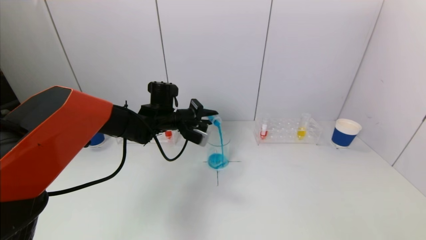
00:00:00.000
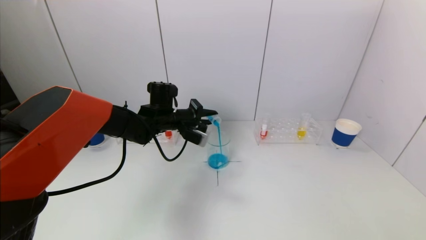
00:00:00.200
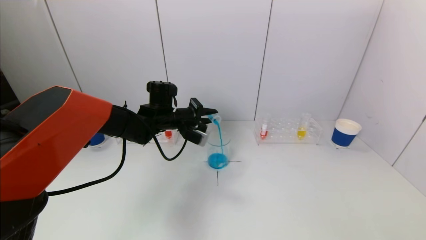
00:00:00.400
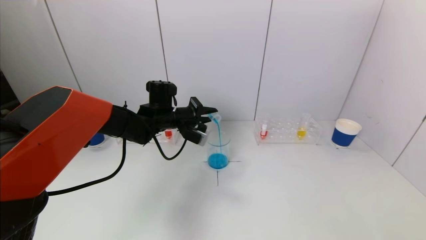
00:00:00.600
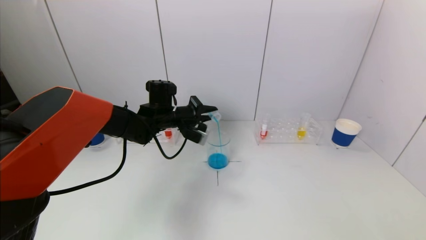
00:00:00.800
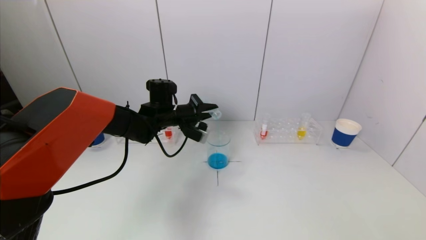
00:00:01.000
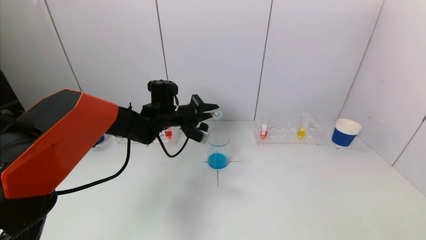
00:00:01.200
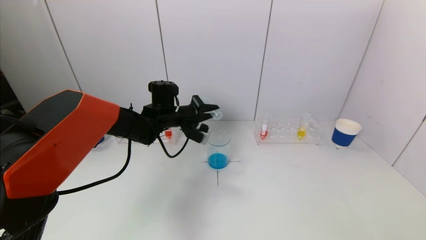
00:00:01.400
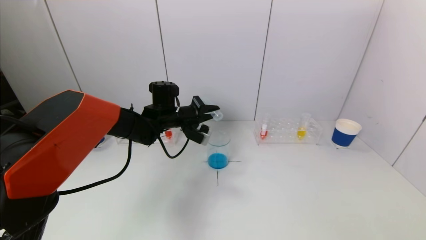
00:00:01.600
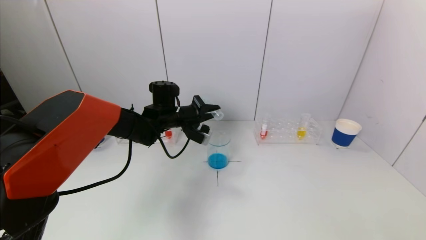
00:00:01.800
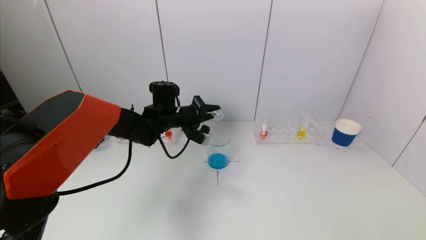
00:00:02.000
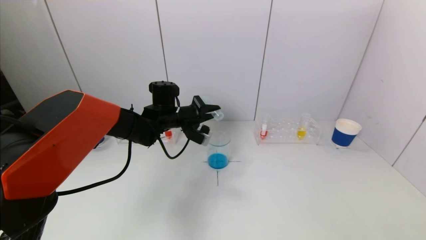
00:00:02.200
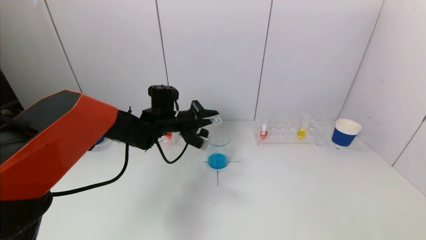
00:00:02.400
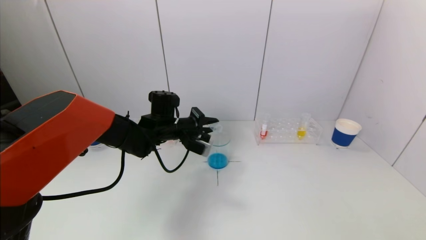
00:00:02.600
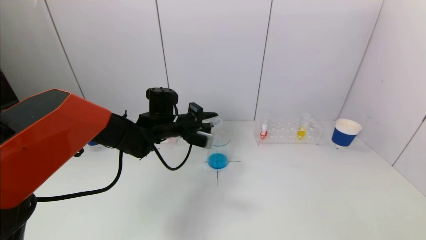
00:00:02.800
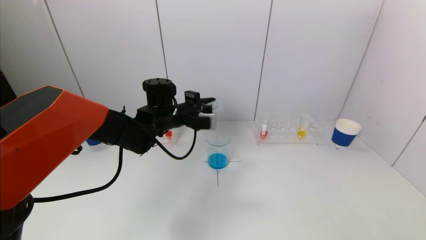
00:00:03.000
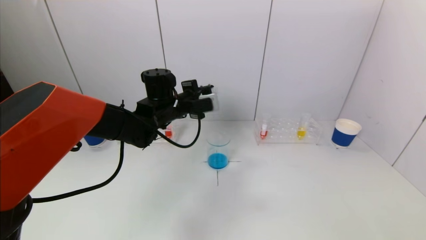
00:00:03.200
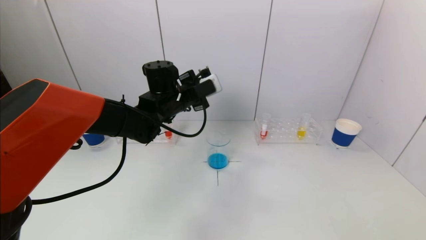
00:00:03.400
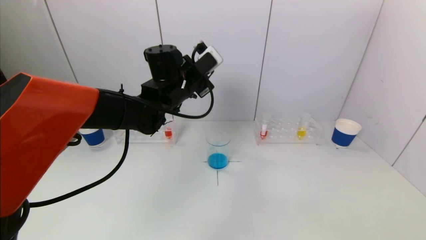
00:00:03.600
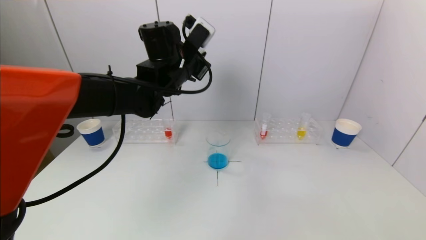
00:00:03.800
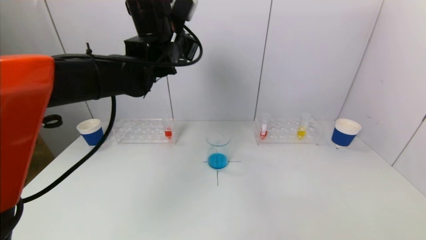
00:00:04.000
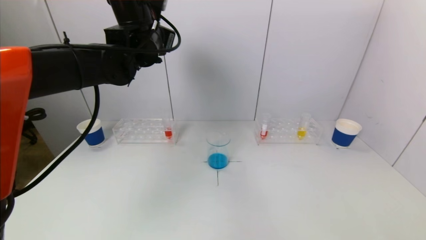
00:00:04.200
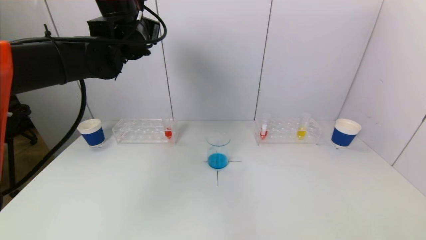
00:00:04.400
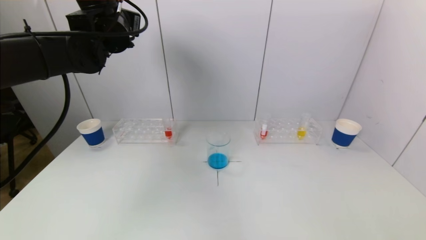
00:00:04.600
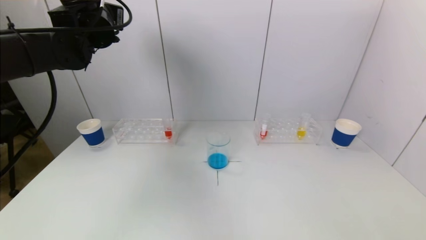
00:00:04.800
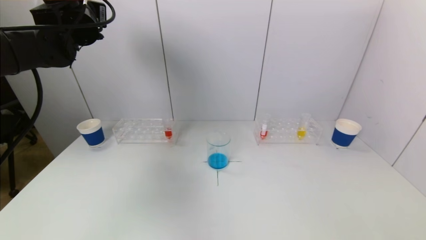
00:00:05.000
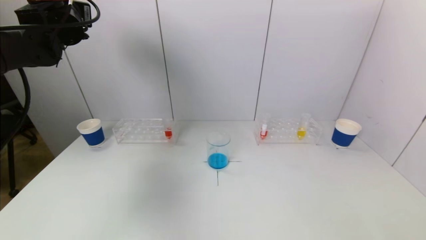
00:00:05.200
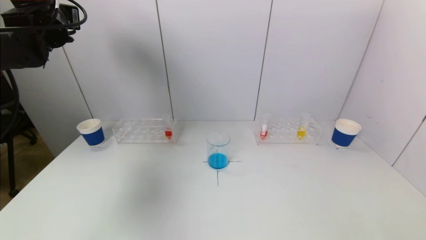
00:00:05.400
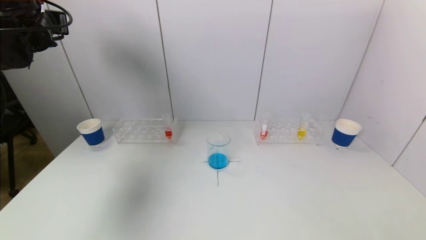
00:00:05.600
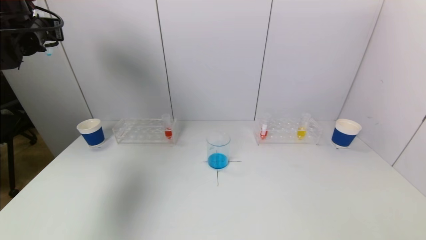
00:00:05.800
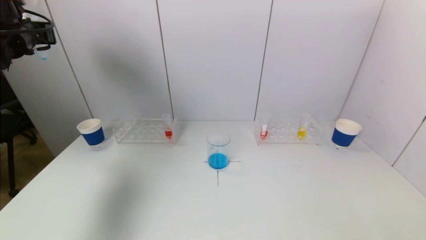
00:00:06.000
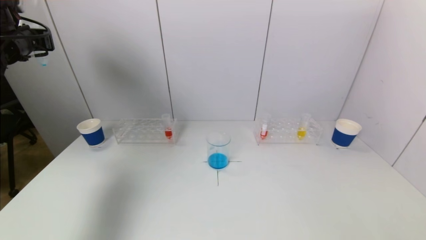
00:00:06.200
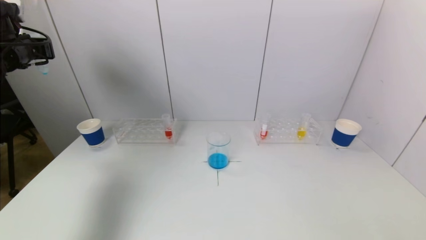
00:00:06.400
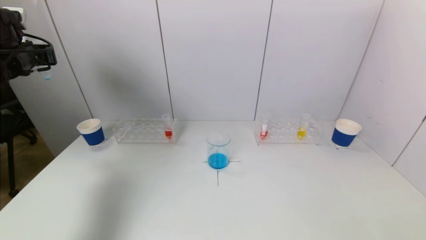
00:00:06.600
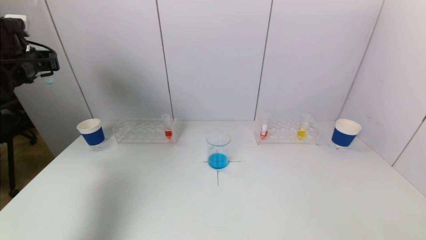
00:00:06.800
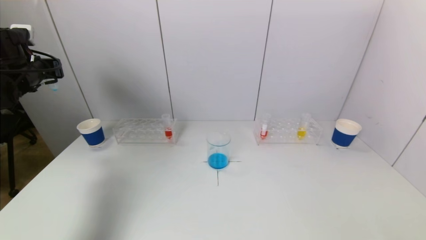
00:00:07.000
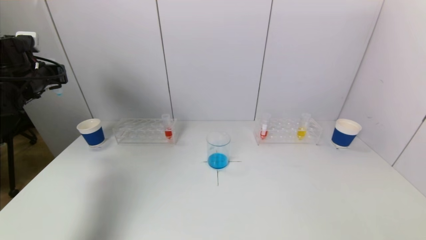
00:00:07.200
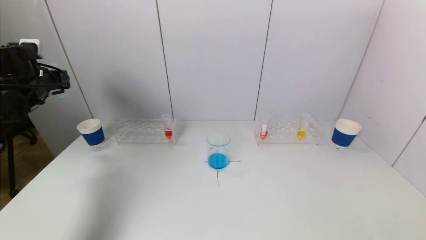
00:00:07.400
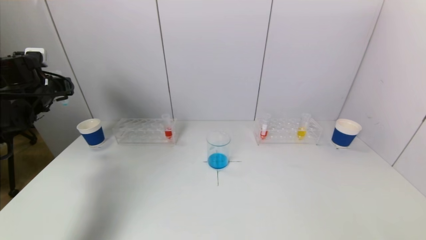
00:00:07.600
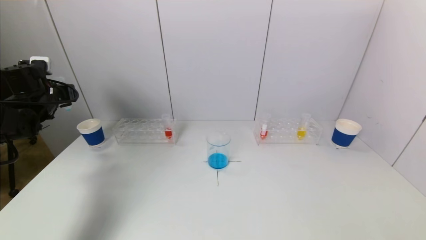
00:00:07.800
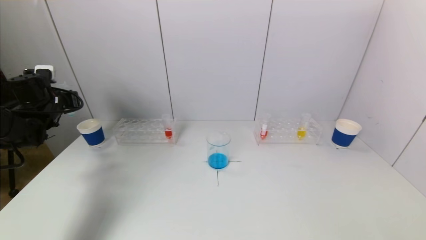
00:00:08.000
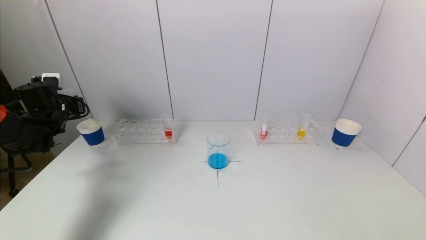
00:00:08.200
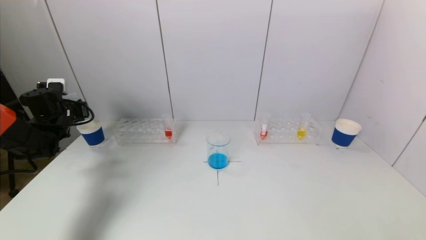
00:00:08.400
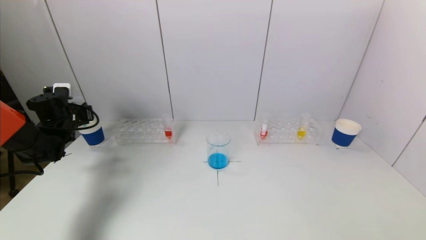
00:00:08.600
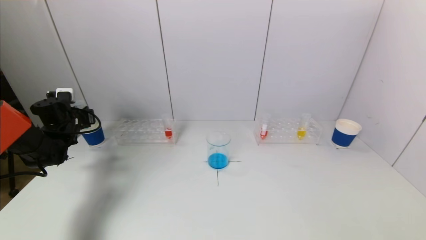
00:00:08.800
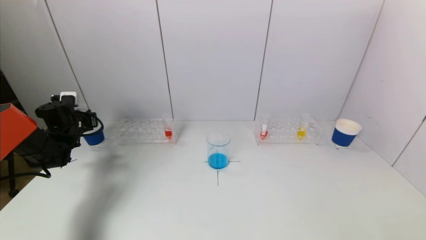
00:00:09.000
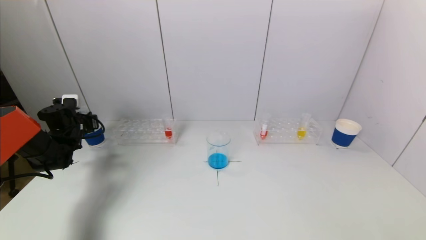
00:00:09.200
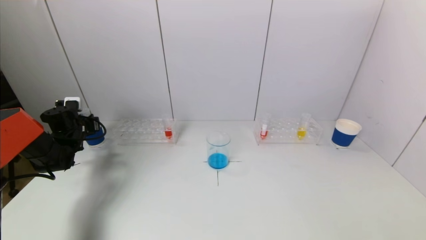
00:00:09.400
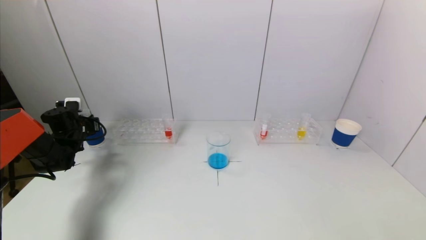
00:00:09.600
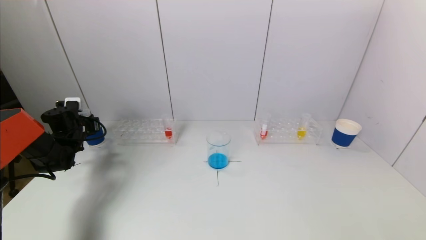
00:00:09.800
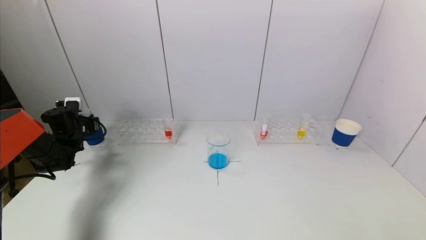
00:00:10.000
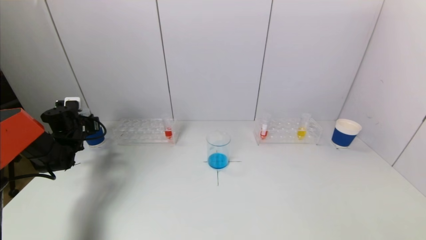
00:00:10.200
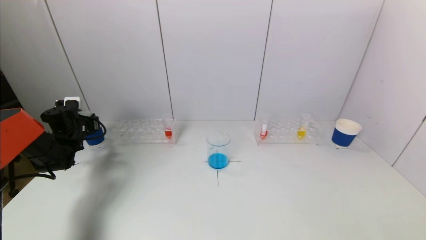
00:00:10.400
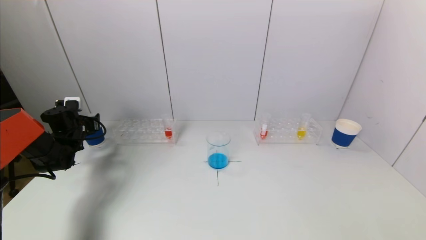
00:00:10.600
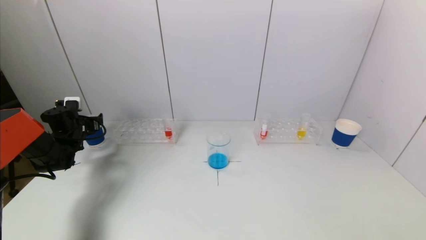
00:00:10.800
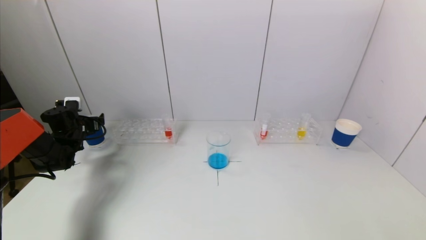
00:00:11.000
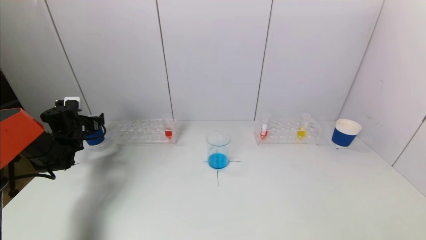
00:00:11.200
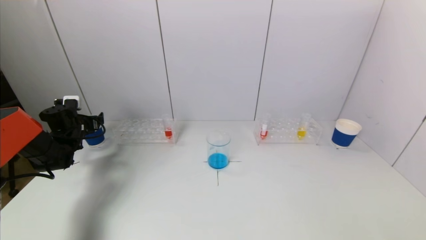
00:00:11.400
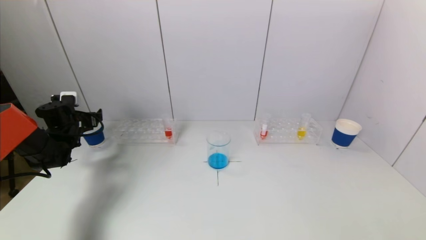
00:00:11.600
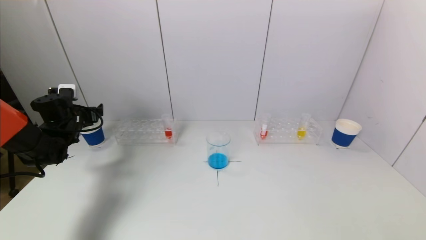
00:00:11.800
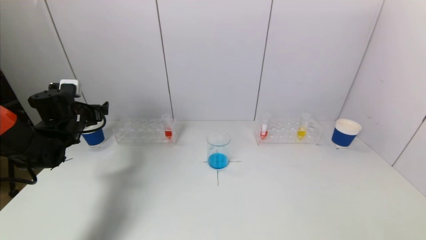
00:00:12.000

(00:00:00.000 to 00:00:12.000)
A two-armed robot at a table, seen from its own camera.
Task of the whole recording: pick up a test tube with pigment on left test tube rack and a test tube with pigment on right test tube rack by grippers and pour them into the beaker.
Step, 00:00:01.400 - 00:00:10.800: Place the test tube into the paper cup with the left gripper.
00:00:00.000 - 00:00:01.600: The grippers move only a little.
00:00:03.000 - 00:00:04.400: The left gripper heads upward, covering approximately 20 cm.
00:00:04.400 - 00:00:06.000: The left gripper goes some 25 cm to the left.
00:00:06.000 - 00:00:07.600: The left gripper travels downward by about 15 cm.
00:00:07.600 - 00:00:09.000: The left gripper is displaced downward by approximately 15 cm.
00:00:09.000 - 00:00:10.400: There are only small adjustments of the grippers.
00:00:10.400 - 00:00:12.000: The left gripper travels upward and to the right by about 10 cm, and opens its fingers.

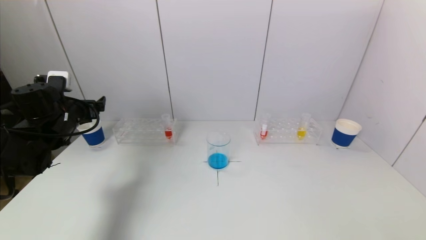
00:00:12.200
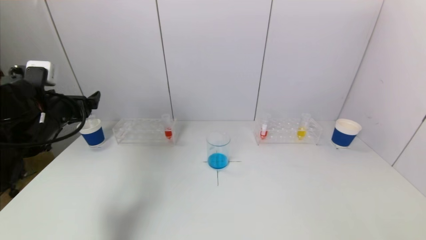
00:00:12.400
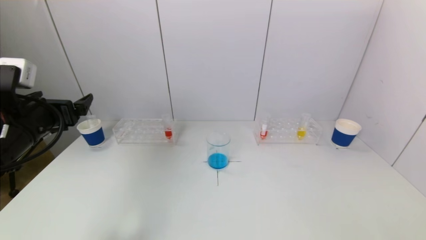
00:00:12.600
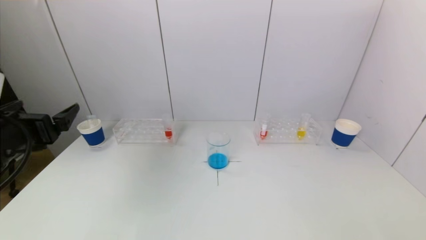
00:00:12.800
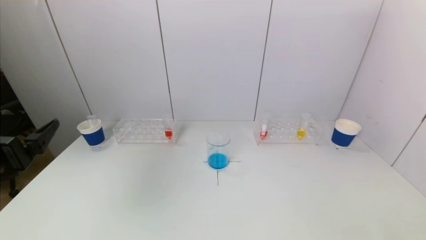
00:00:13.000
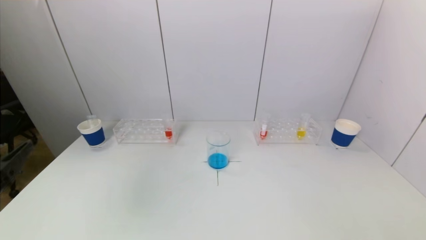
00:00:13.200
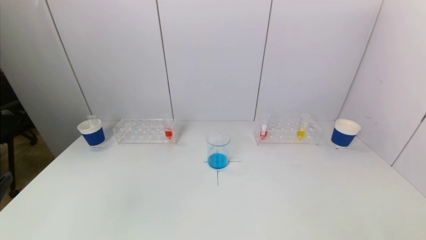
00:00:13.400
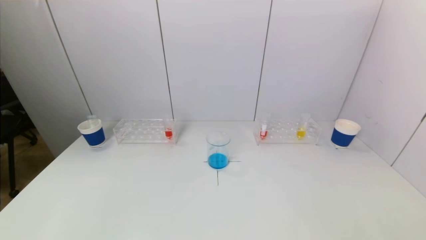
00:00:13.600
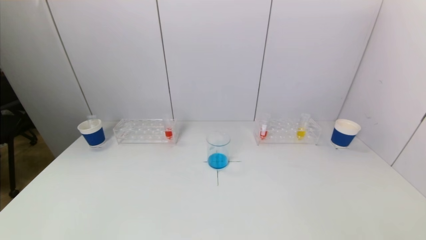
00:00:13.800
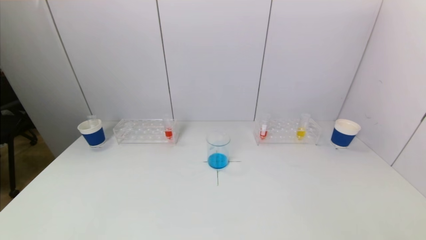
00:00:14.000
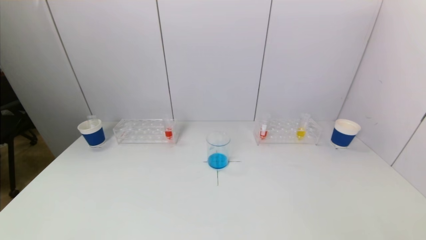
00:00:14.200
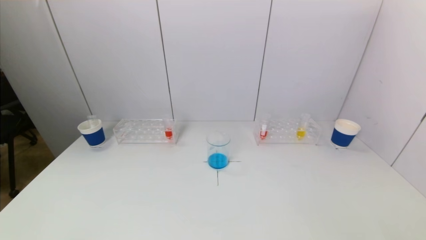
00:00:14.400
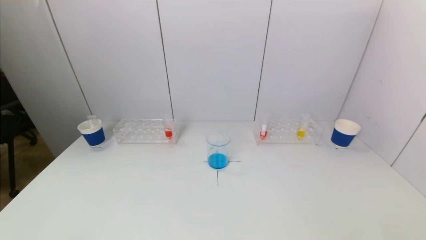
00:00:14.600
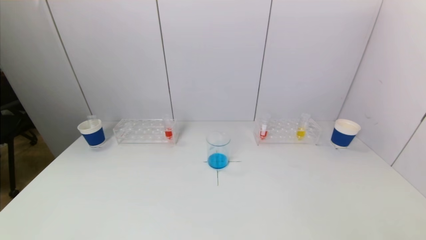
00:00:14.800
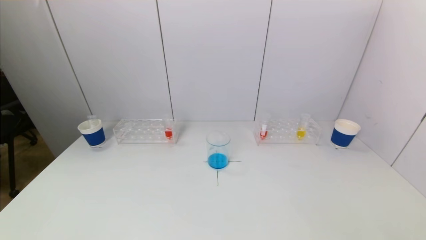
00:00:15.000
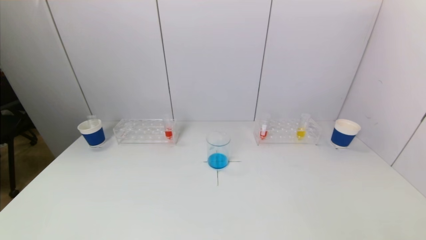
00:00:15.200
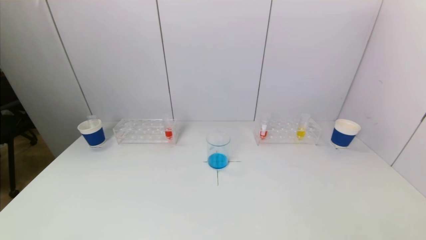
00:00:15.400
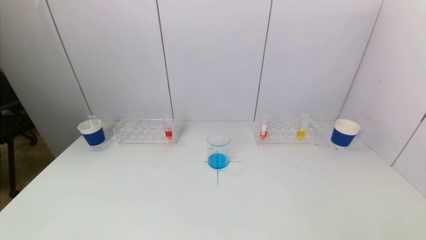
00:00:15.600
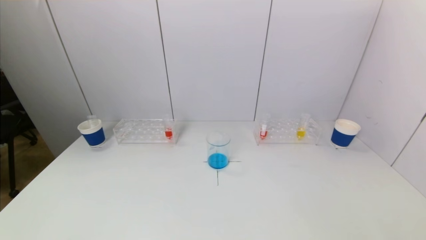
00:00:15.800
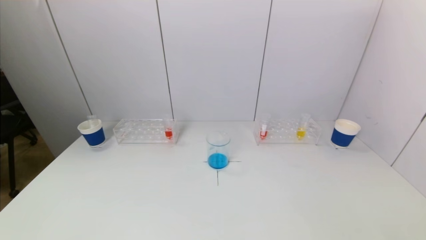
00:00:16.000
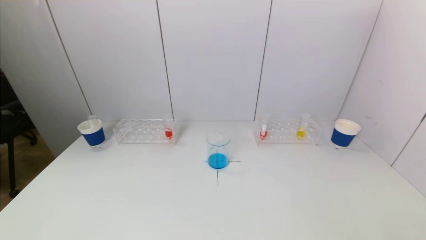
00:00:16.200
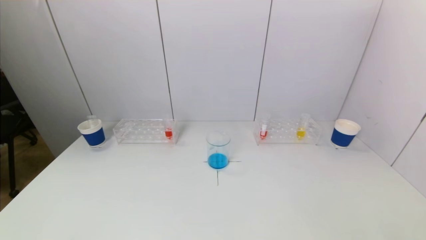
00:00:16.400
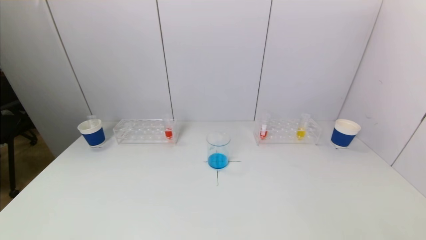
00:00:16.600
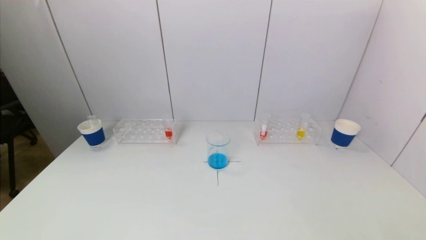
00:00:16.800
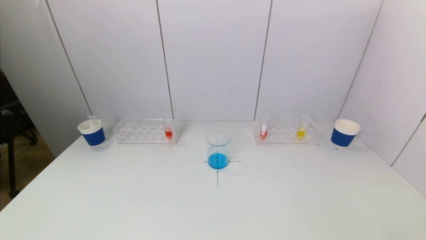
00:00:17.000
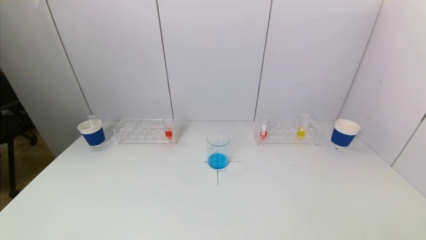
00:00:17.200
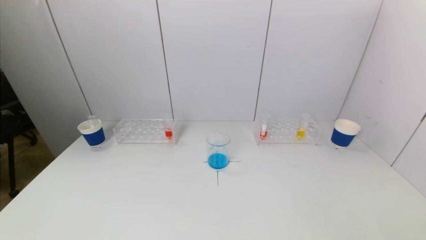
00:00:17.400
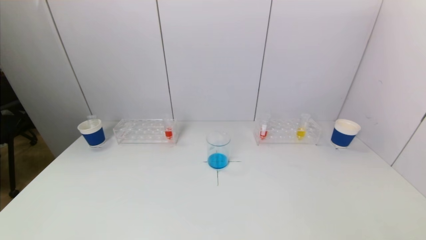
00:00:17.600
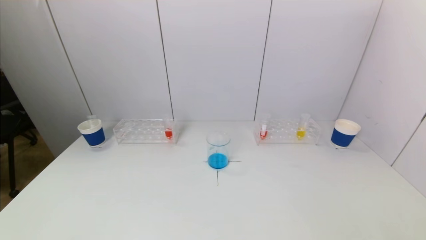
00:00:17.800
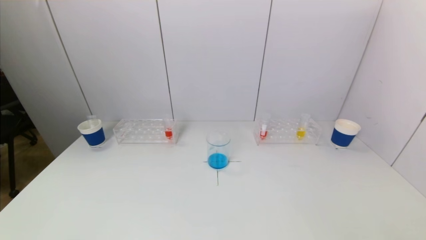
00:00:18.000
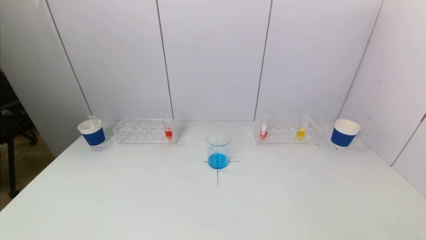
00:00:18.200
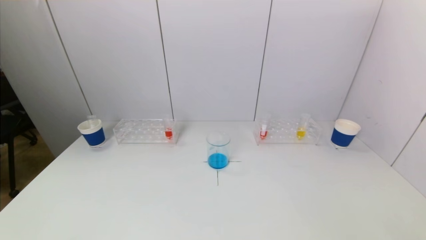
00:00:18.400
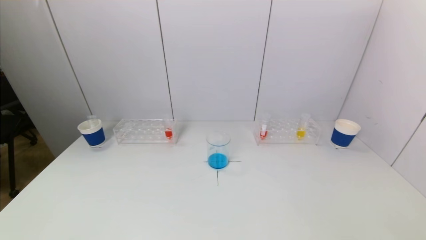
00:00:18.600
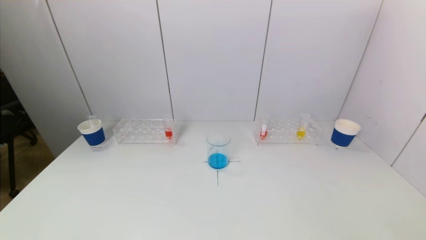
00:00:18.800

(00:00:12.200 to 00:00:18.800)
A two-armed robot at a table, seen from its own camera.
Task of the whole recording: pick up a test tube with pigment on left test tube rack and a test tube with pigment on right test tube rack by grippers and pour them into the beaker.
00:00:12.200 - 00:00:13.800: The left gripper travels backward by roughly 35 cm.
00:00:15.400 - 00:00:17.200: Neither gripper changes place.
